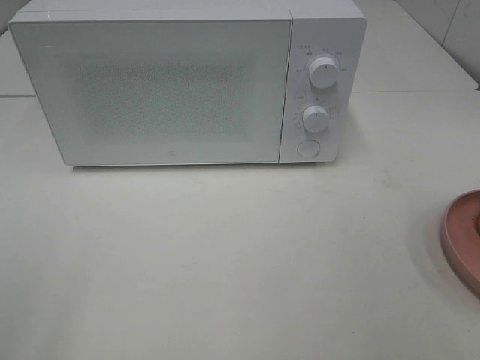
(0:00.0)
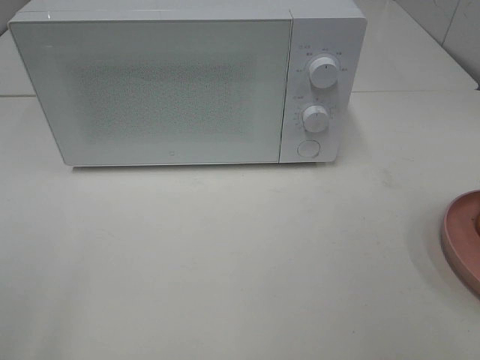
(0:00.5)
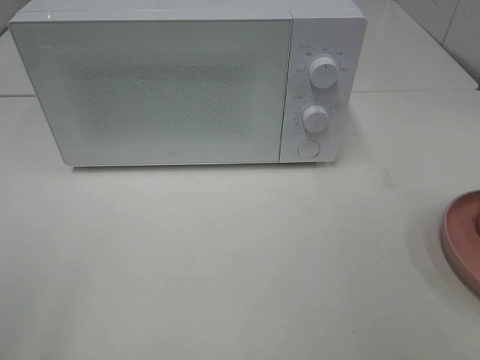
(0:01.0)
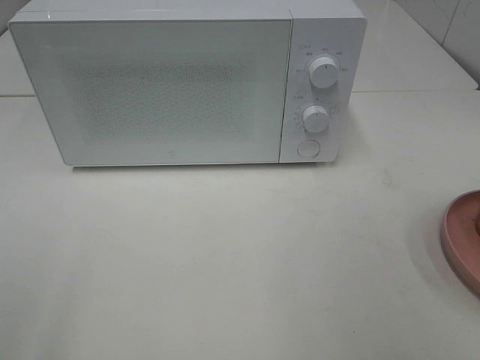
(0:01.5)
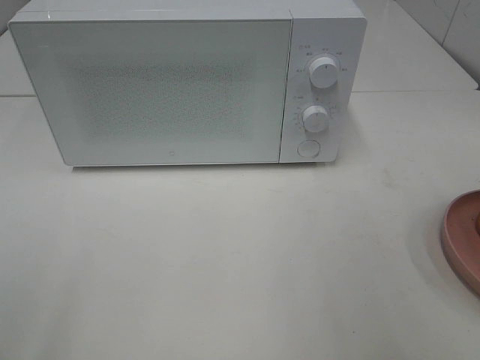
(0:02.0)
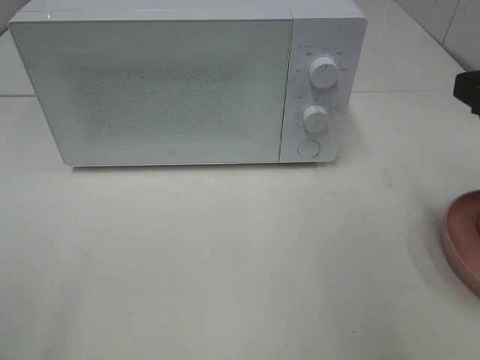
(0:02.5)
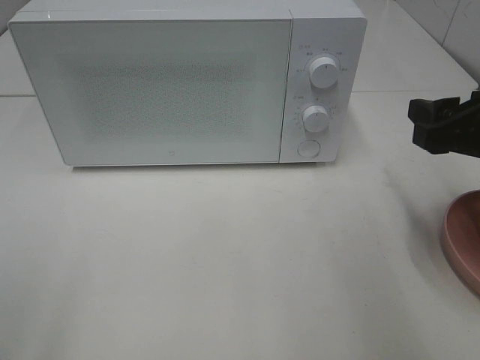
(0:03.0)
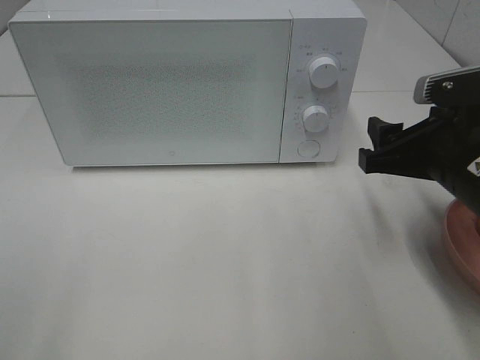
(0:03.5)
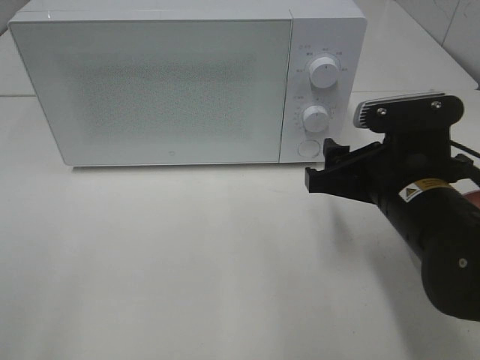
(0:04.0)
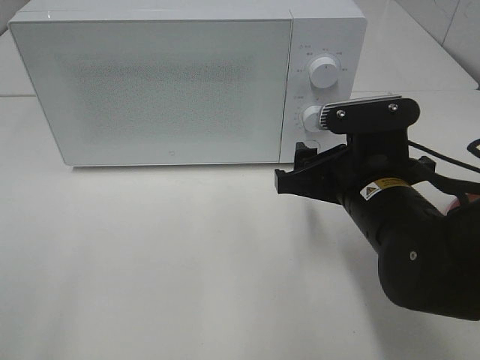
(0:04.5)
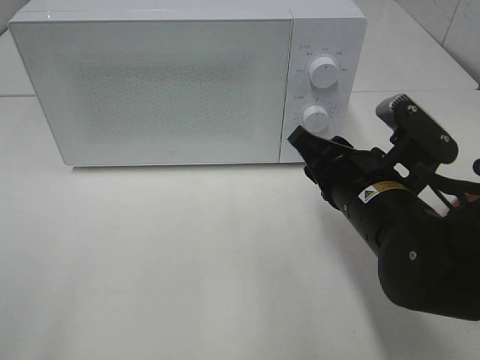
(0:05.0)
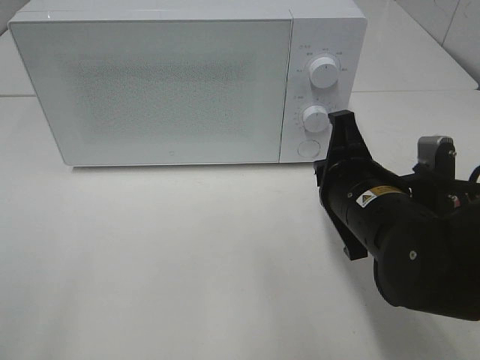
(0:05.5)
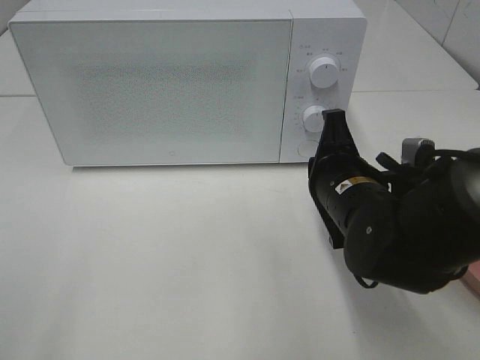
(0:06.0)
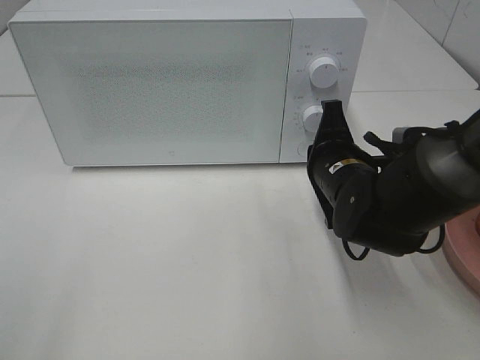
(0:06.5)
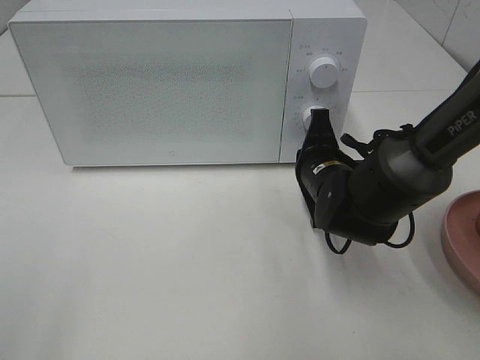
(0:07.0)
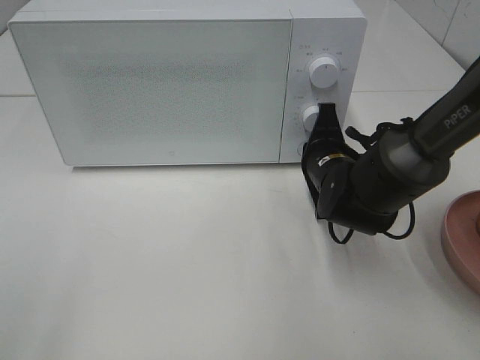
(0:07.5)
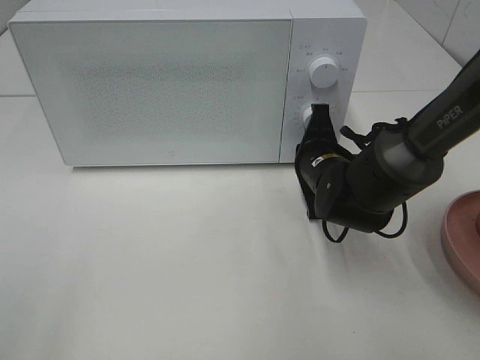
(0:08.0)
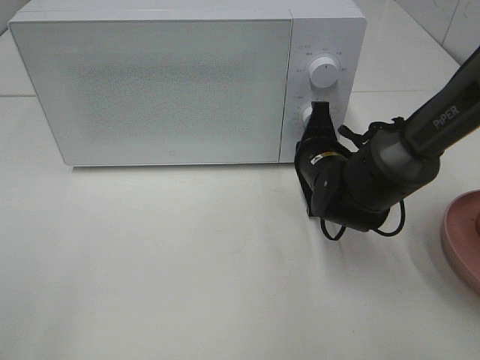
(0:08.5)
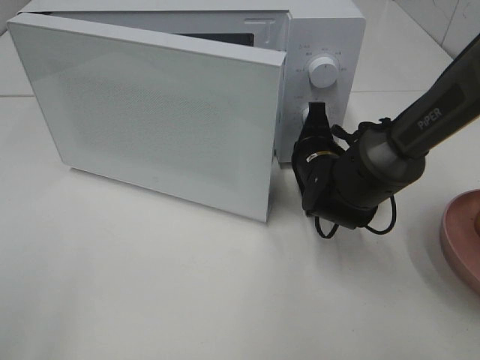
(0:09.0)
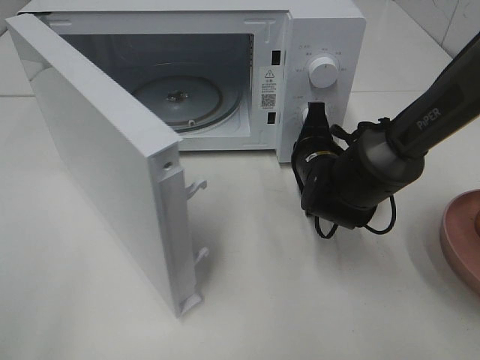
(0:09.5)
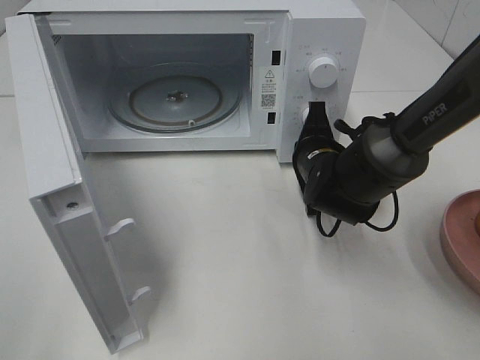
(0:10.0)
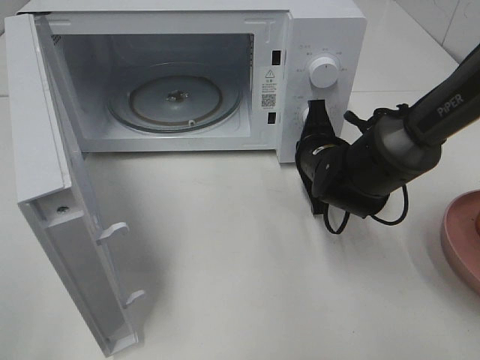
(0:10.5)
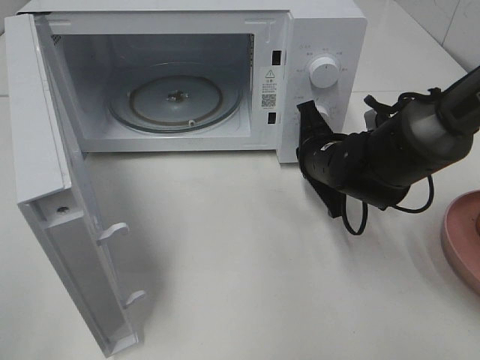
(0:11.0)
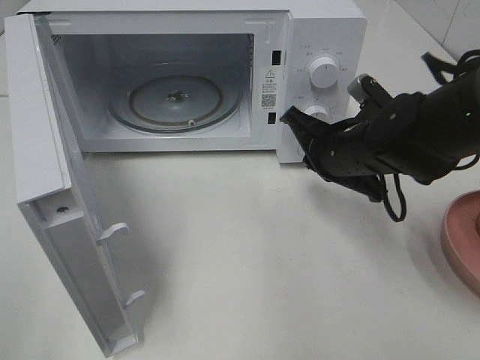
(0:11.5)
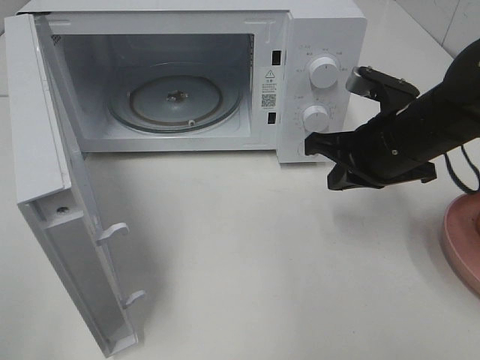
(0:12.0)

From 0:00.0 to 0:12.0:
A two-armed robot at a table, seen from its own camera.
Task of the whole recording: Heat the burger.
Step, from 0:00.0 to 0:11.0: Right hand: press the switch.
From 0:02.0 to 0:04.0: The right gripper heads downward, to the left and forward, covering some 20 cm.
From 0:04.0 to 0:06.0: The right gripper shifts by approximately 5 cm, and closes.
From 0:06.0 to 0:08.0: The right gripper goes approximately 10 cm forward.
From 0:10.0 to 0:12.0: The right gripper shifts approximately 10 cm upward, to the right and backward.

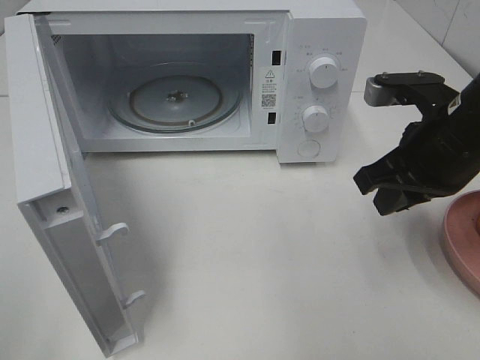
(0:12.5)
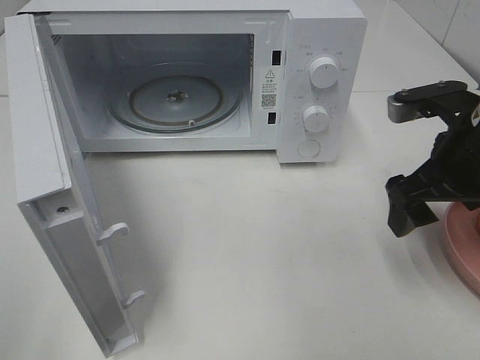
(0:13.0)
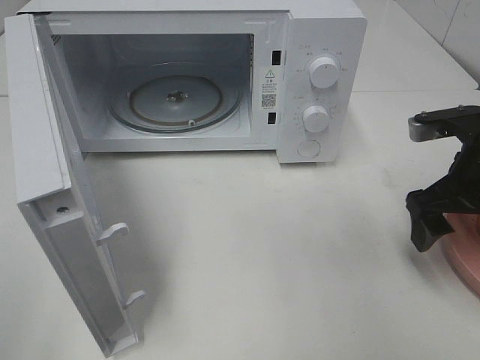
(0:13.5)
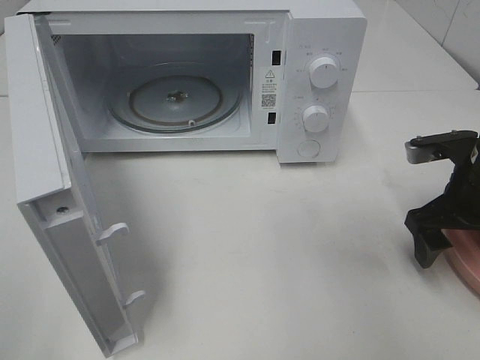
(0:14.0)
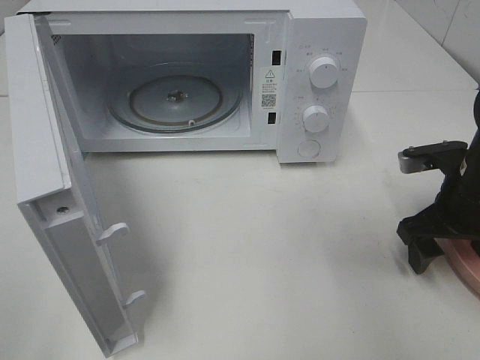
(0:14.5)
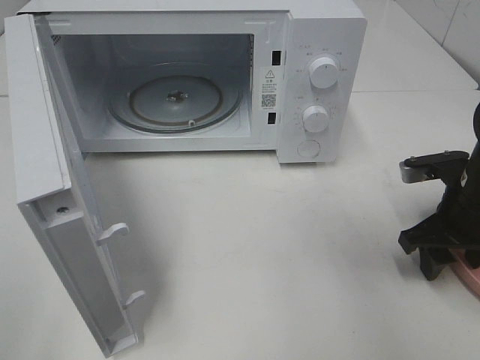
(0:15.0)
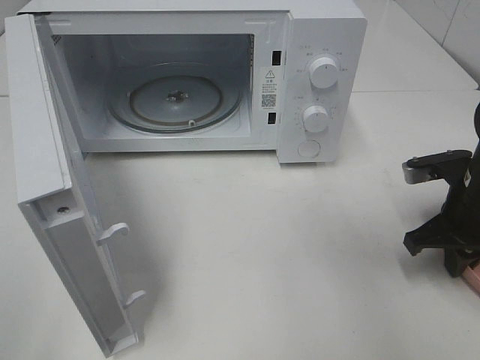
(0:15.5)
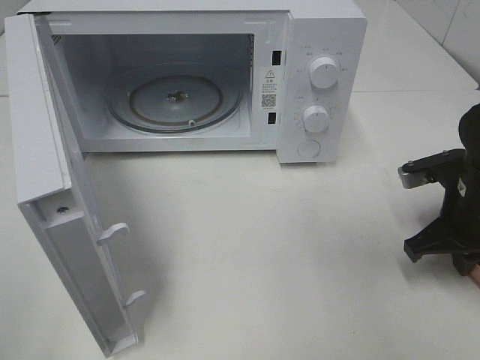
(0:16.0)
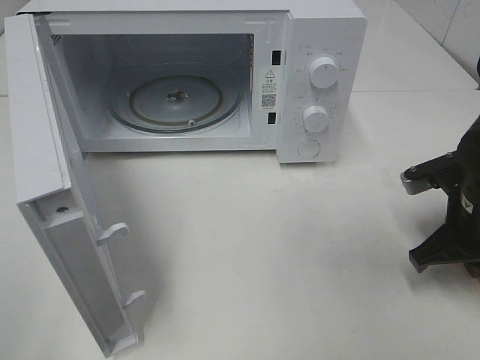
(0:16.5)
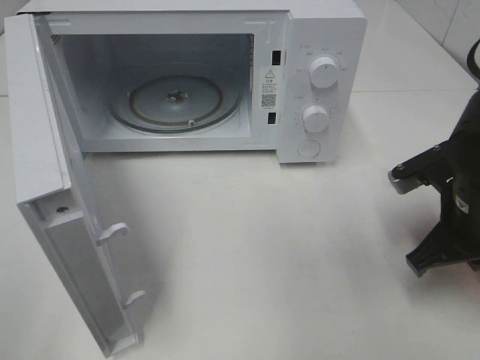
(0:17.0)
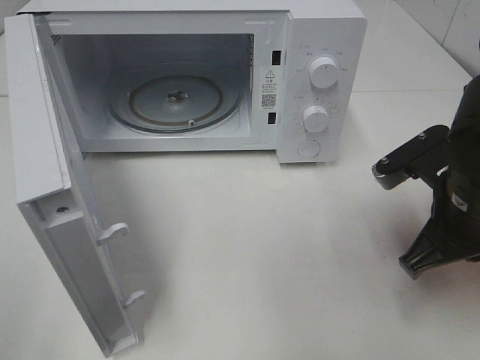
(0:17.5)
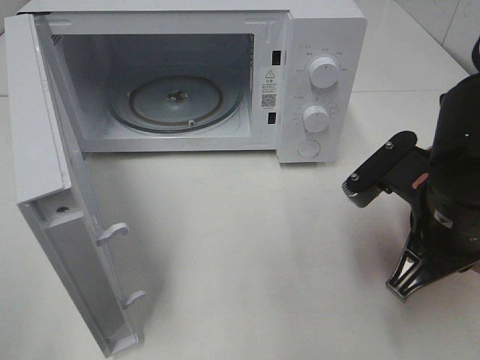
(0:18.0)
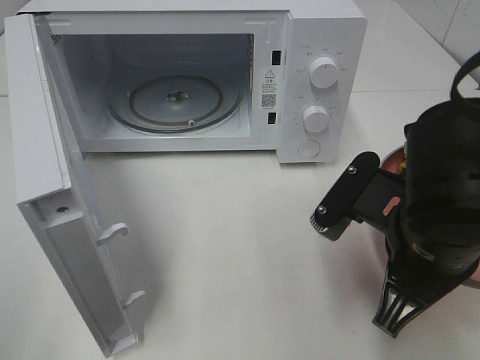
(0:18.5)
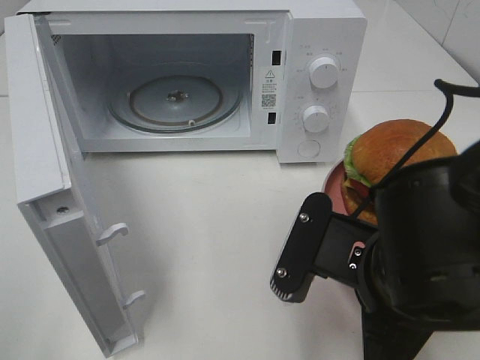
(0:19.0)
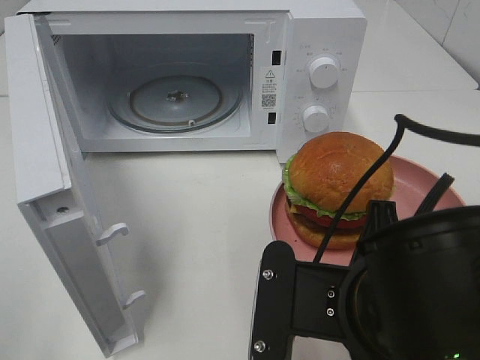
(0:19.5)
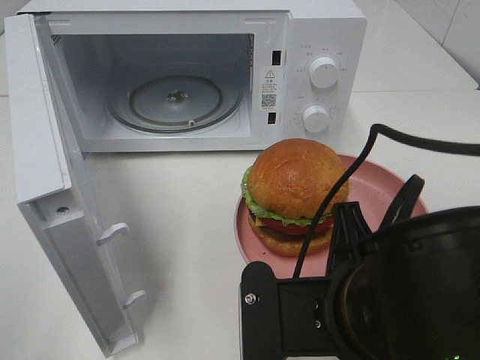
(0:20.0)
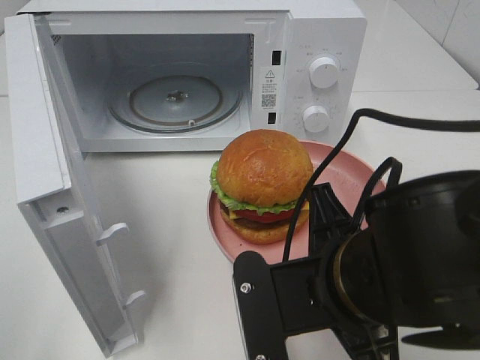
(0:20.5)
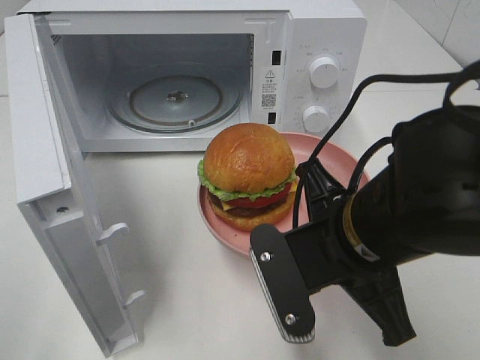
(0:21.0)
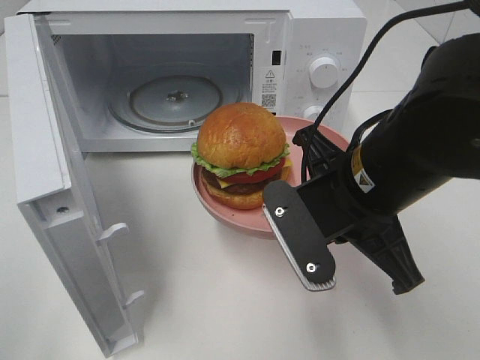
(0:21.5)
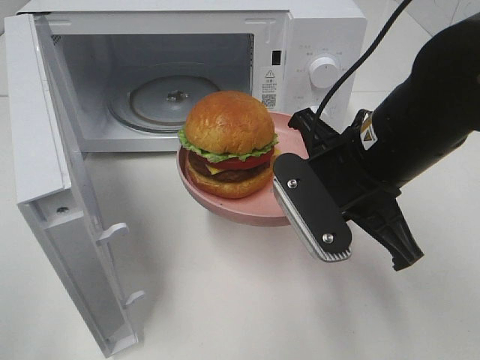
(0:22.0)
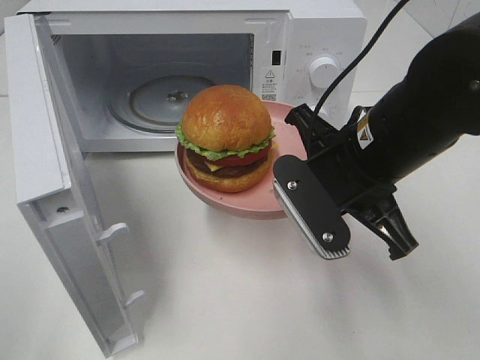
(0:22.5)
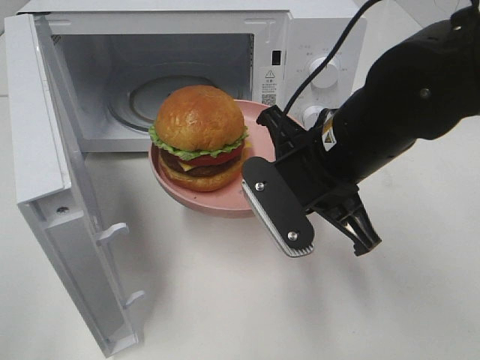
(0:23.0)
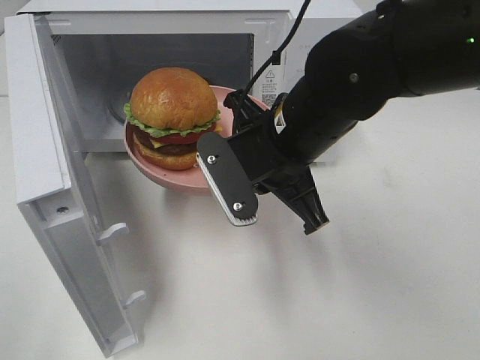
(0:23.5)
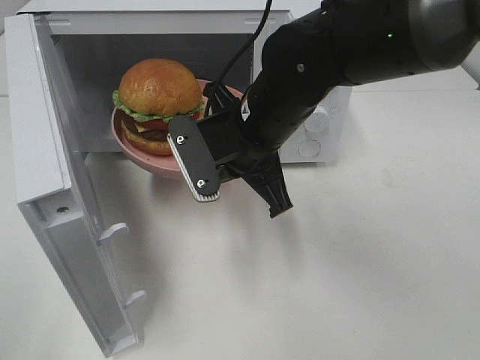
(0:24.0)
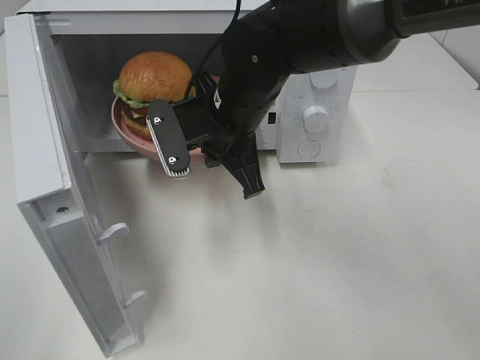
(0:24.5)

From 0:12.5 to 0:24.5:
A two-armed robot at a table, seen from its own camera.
Task of the whole recording: Heat the burger.
Step, from 0:12.5 to 0:15.5: Right hand: grab the plate with the hamburger.
From 0:12.5 to 0:14.5: The right gripper heads downward and to the right, covering about 10 cm, and opens up.
From 0:14.5 to 0:16.5: The right gripper closes its fingers.
From 0:16.5 to 0:18.5: The right gripper travels to the left, backward and upward by roughly 15 cm.
From 0:18.5 to 0:20.5: The right gripper shifts about 5 cm to the left.
From 0:20.5 to 0:22.5: The right gripper shifts about 10 cm forward.
From 0:22.5 to 0:24.5: The right gripper shifts about 15 cm to the left and forward.

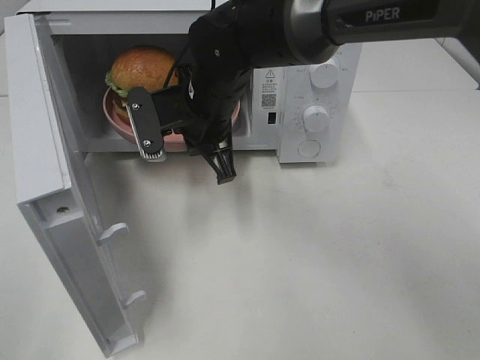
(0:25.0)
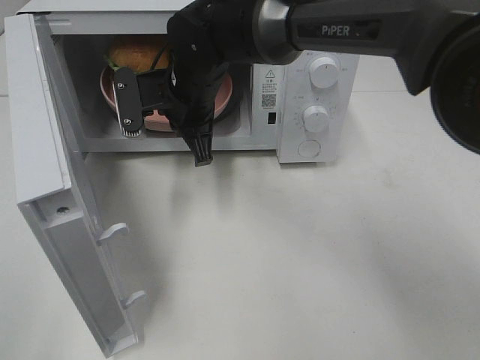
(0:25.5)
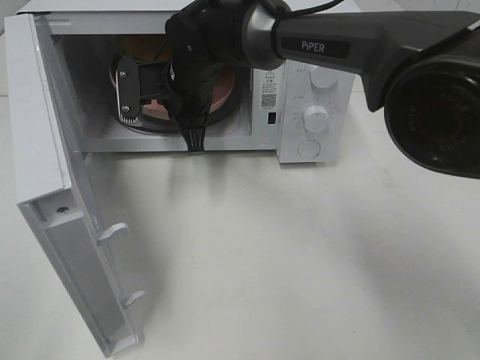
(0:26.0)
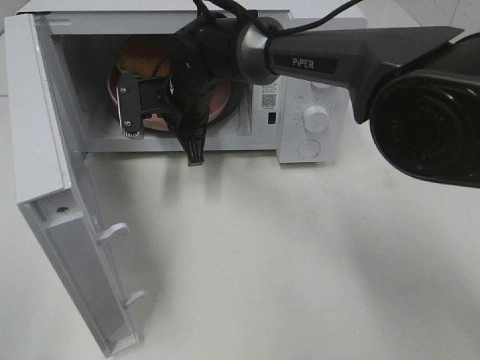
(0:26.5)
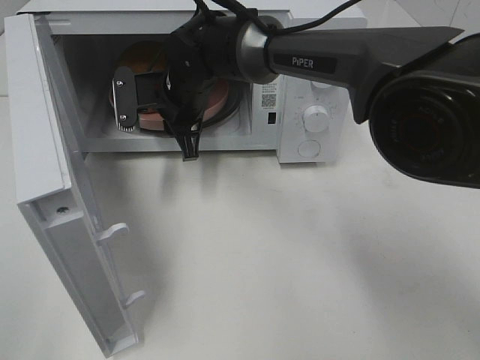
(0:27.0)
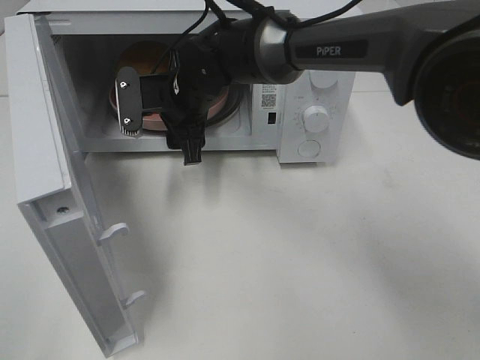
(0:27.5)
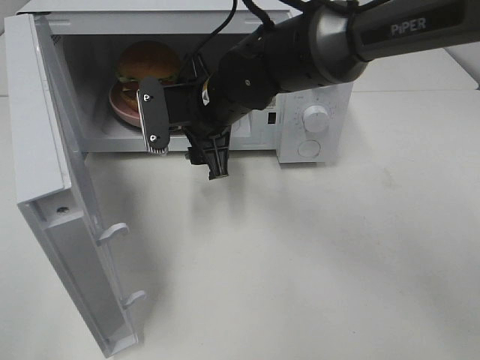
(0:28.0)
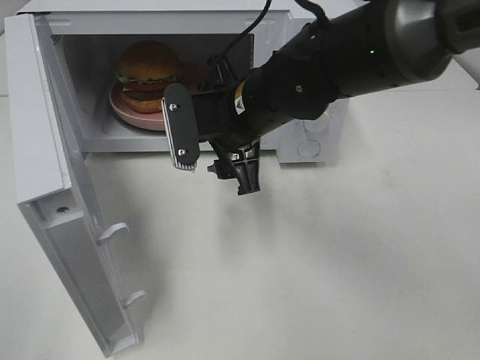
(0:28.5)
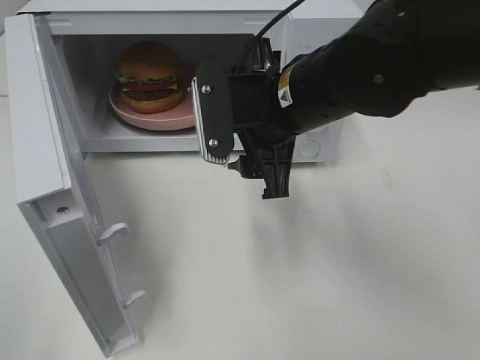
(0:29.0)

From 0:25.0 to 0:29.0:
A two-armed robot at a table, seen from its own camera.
Task of the whole recording: Heat the burger.
Step, from 0:25.0 to 0:27.0: Right hand: place the plate in the microwave.
From 0:25.0 to 0:27.0: The right gripper travels forward by roughly 5 cm, and opens up.
From 0:27.0 to 0:29.0: The right gripper travels backward, to the right and upward by approximately 20 cm.
